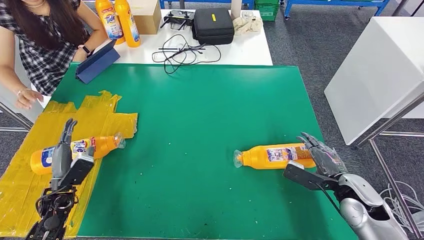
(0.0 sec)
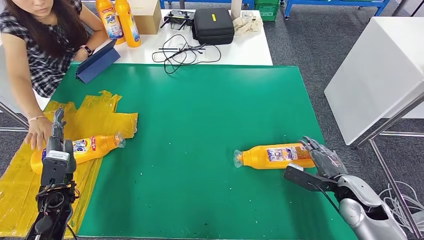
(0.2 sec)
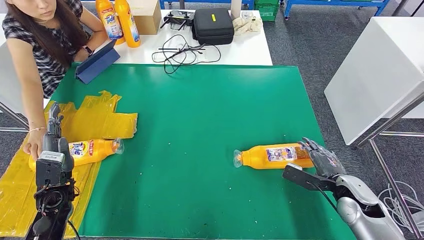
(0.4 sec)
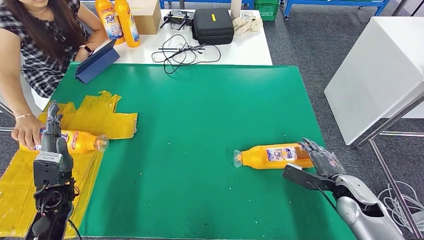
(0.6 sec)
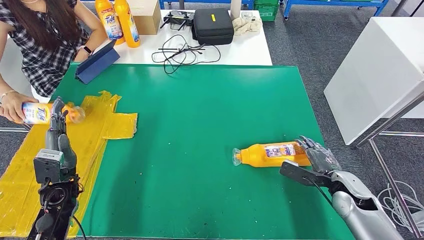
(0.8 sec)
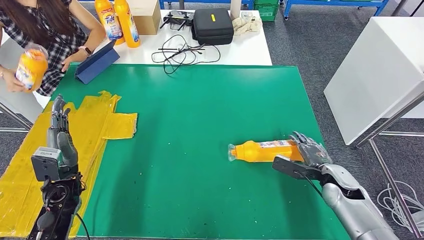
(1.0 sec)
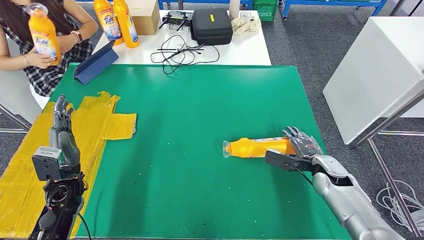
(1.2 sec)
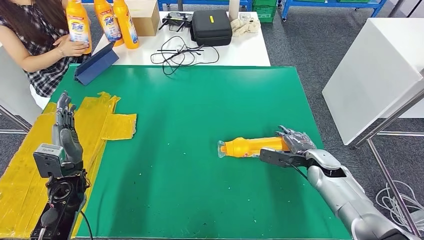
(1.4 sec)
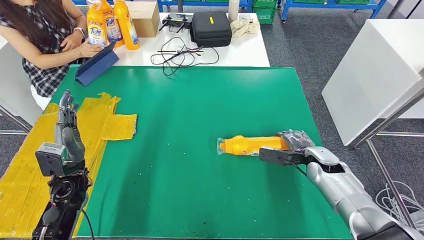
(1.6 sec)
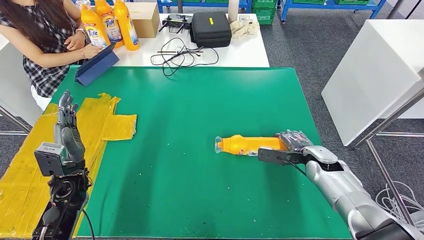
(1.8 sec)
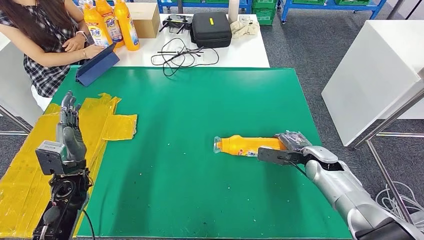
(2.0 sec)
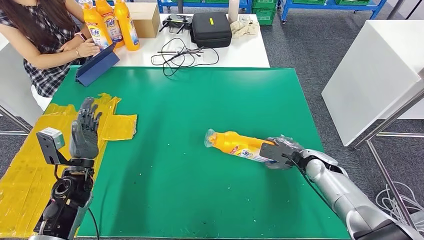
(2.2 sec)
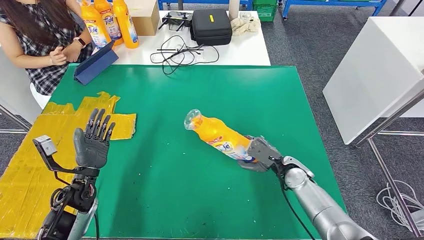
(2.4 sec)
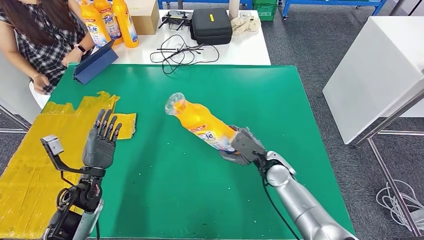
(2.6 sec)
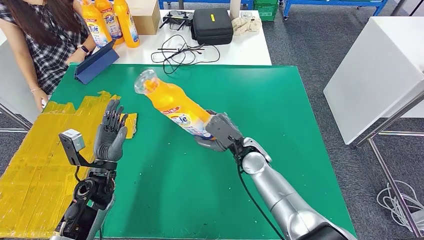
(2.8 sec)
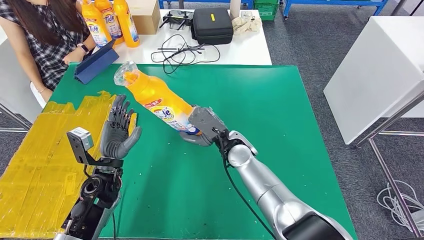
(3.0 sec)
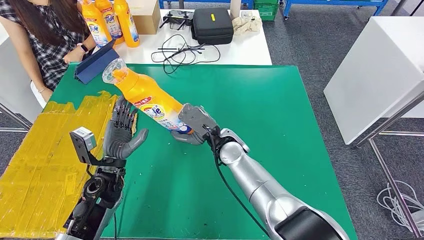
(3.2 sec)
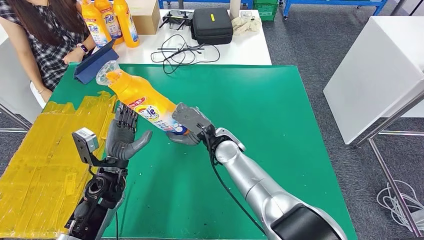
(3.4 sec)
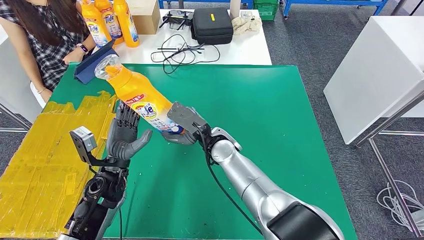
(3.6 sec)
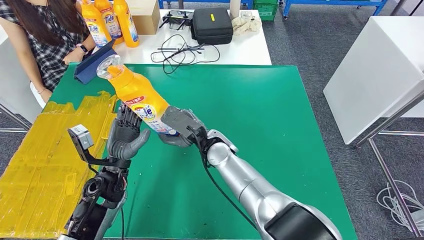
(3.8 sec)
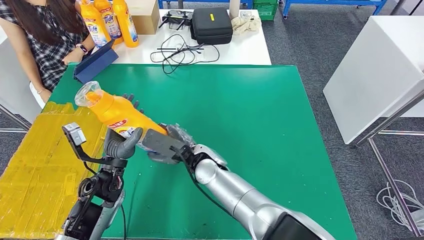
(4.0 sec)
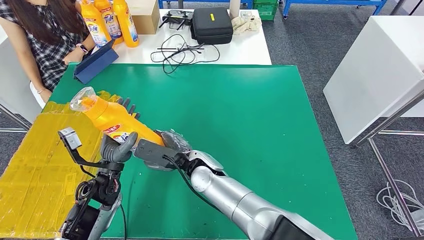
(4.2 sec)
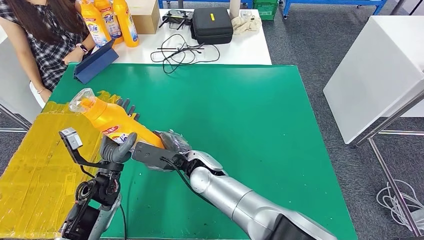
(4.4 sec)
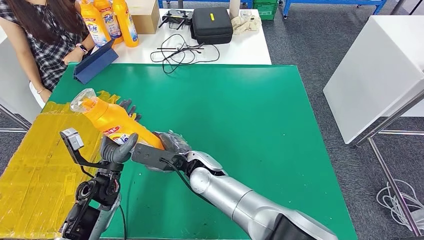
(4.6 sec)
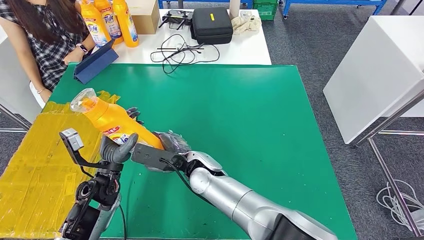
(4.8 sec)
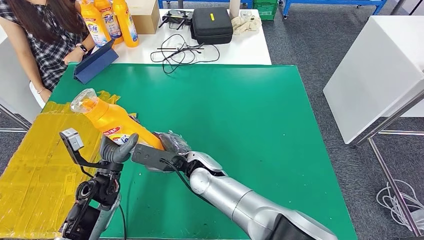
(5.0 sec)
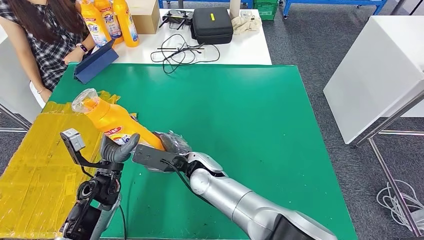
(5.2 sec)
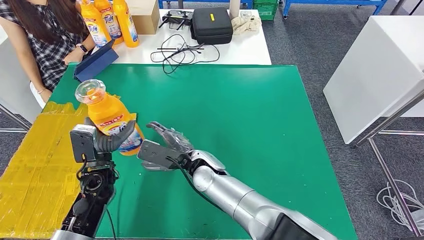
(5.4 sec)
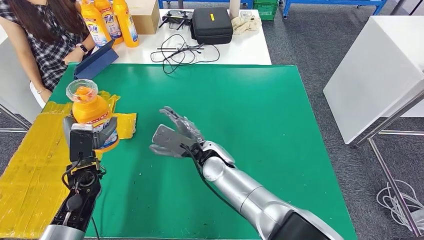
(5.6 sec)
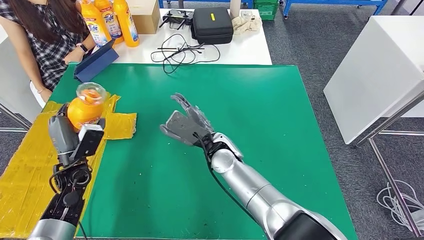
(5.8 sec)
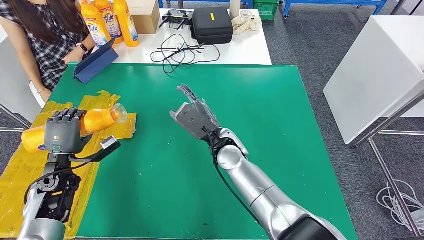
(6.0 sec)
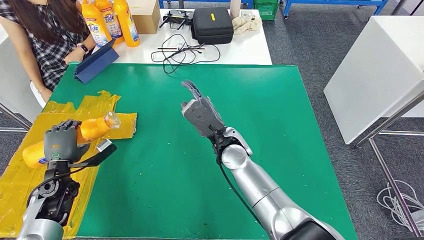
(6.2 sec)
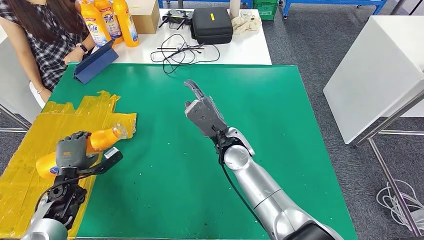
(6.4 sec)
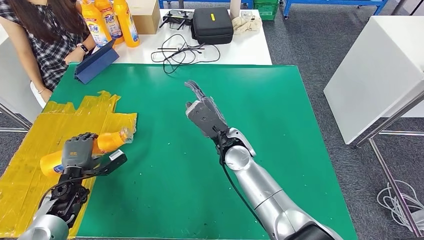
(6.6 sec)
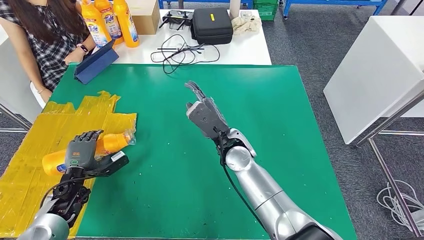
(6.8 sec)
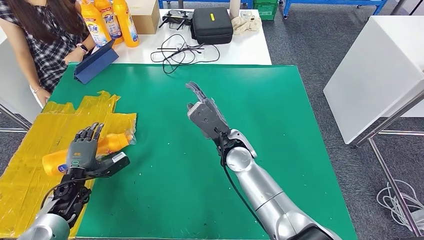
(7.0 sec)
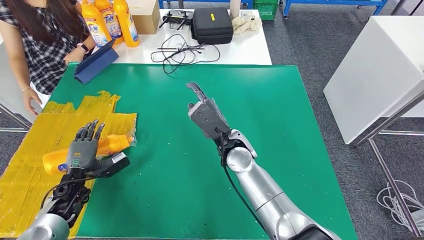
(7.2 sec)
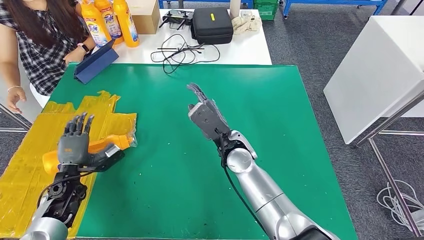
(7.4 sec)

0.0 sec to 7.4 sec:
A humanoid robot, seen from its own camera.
Step, 0.0 sec to 4.6 sec: Pick up the fast-moving consumer goods bottle from the table.
Step, 4.8 sec to 7.4 sec: Flip the fast-moving consumer goods bottle to the front side.
3.0 sec to 4.4 sec: The right hand goes approximately 10 cm to the left and backward.
4.4 sec to 6.0 sec: The right hand shifts roughly 5 cm to the right; the left hand heads to the left, covering approximately 15 cm.
6.0 sec to 7.4 sec: The left hand heads downward, covering roughly 5 cm.
